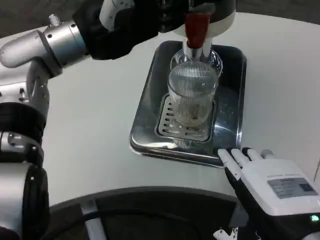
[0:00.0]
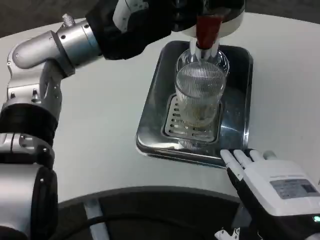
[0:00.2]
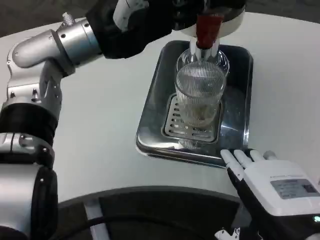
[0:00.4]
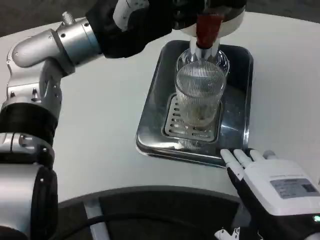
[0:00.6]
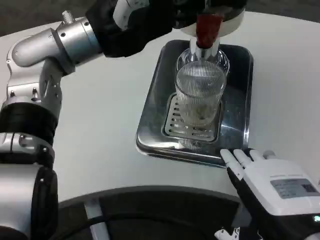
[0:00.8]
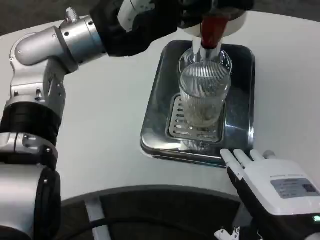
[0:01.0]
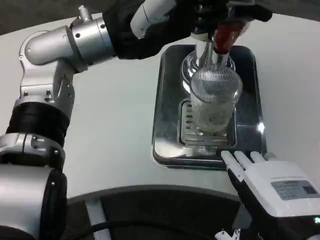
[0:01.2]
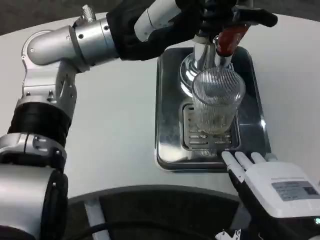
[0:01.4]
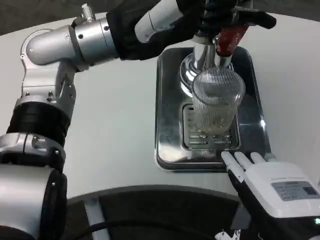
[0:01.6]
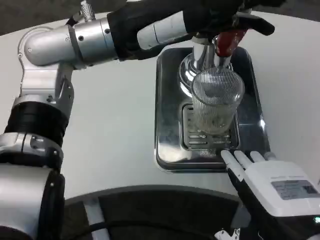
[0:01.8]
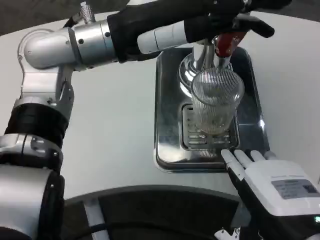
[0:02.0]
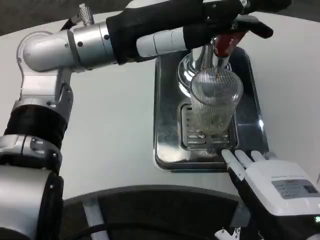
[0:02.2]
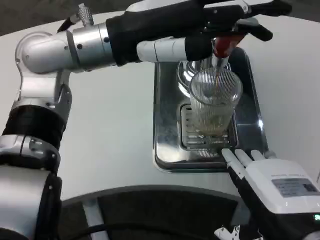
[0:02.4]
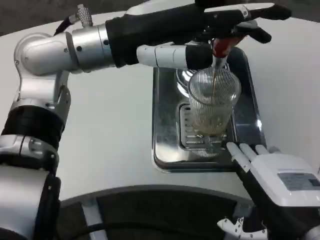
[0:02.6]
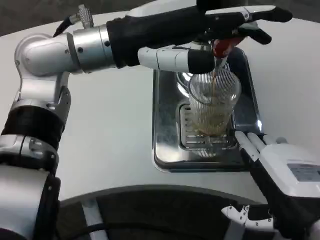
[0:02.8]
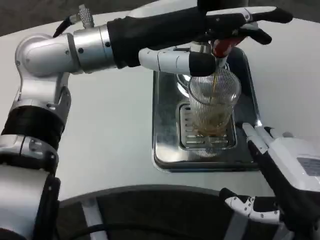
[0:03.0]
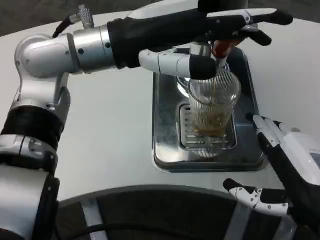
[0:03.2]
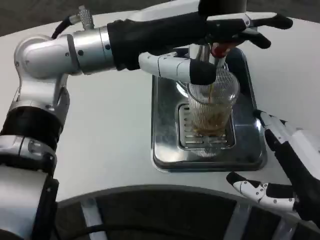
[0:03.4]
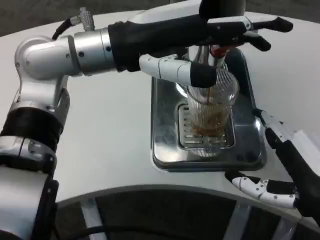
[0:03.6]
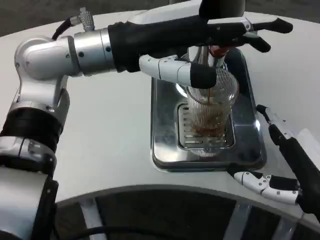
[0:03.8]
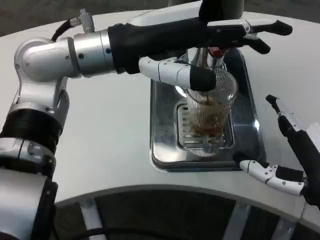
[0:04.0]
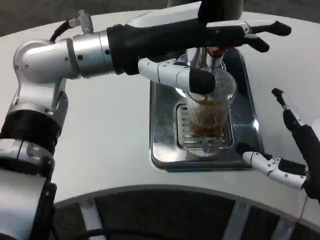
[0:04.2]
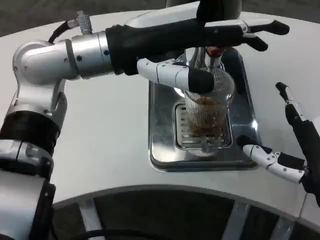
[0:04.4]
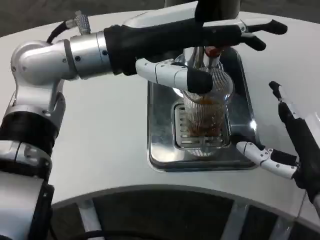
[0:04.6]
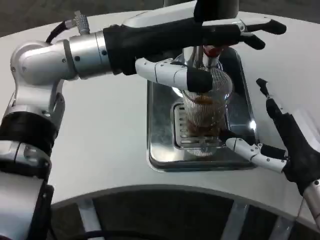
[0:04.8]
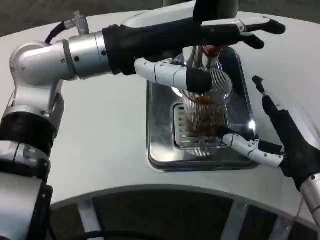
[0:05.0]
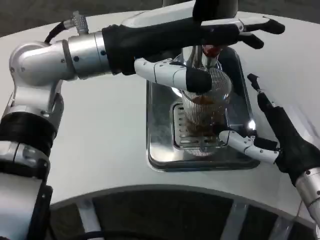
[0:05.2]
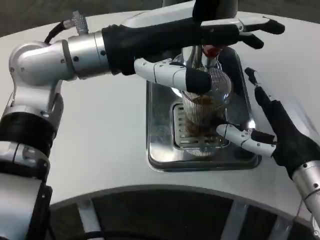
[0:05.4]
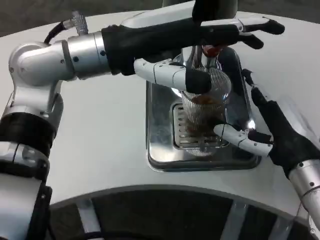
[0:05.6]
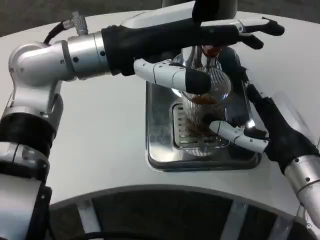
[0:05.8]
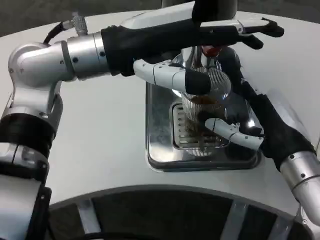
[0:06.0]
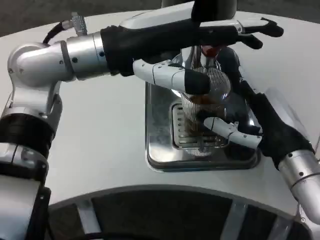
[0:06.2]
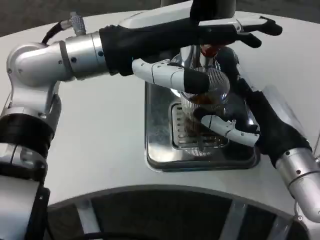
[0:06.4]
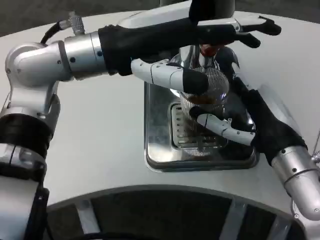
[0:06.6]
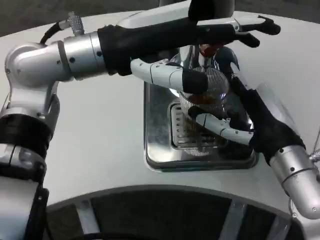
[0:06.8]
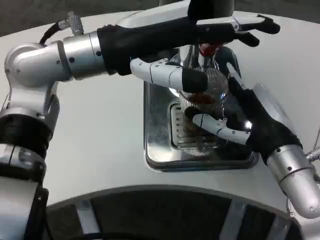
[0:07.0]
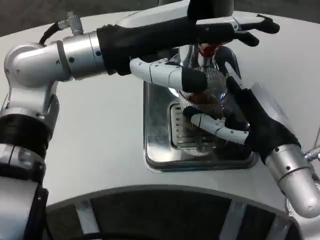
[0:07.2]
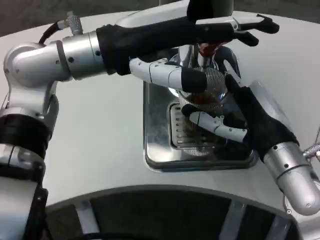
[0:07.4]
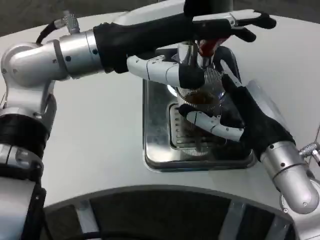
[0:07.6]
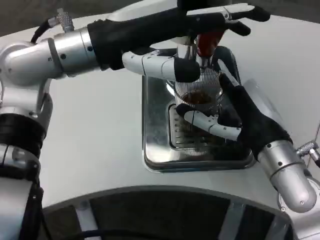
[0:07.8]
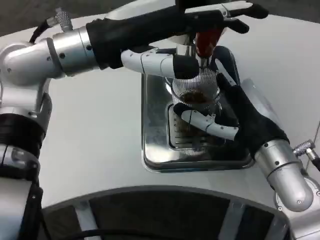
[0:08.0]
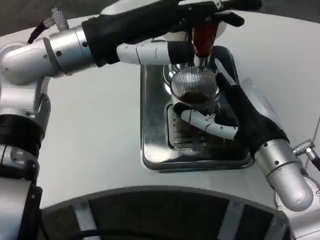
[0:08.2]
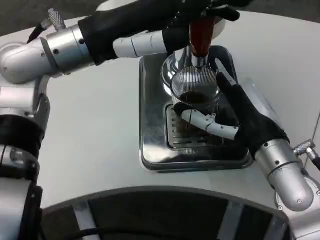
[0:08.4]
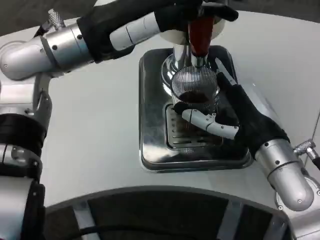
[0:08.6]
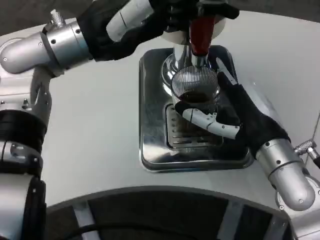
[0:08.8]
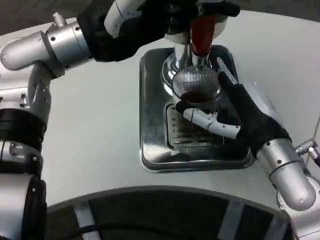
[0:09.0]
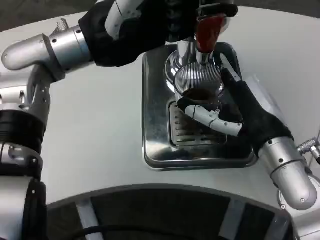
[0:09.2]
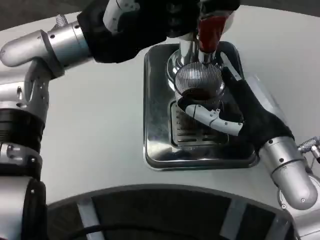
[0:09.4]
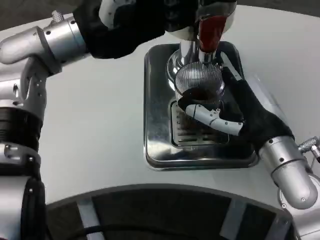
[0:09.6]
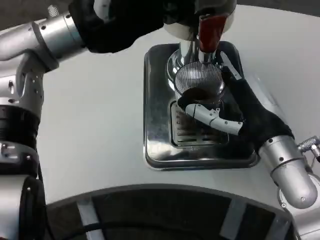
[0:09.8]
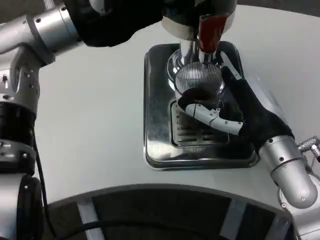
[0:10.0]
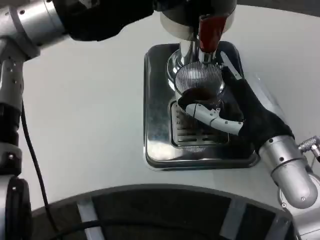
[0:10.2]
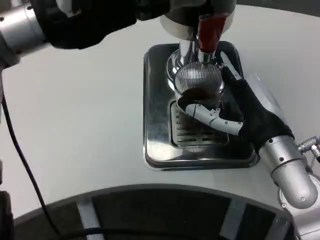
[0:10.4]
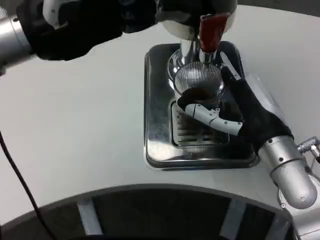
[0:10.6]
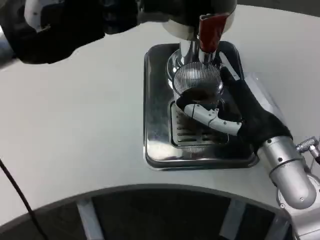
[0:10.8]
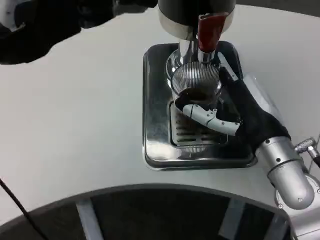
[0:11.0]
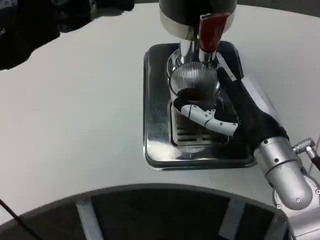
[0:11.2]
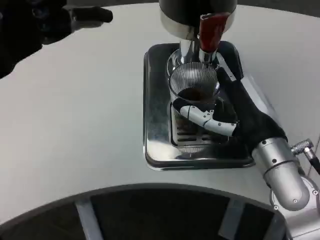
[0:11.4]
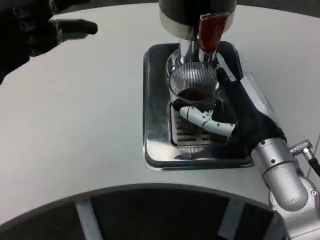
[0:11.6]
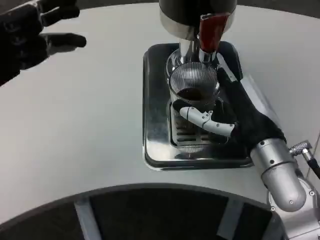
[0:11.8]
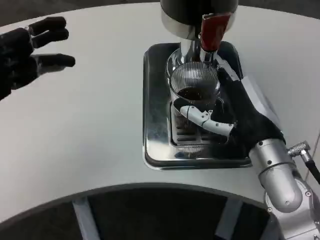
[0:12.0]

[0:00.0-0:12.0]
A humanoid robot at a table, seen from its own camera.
Task of the whole recording: Grasp the cup under the faucet to collect the drink, then remove the cup.
0:03.0 to 0:04.4: The right hand travels forward by some 5 cm.
0:04.4 to 0:06.0: The right hand moves forward, approximately 5 cm.
0:09.0 to 0:10.4: The left hand moves roughly 5 cm.
0:10.4 to 0:12.0: The left hand heads to the left, downward and backward, covering about 15 cm.

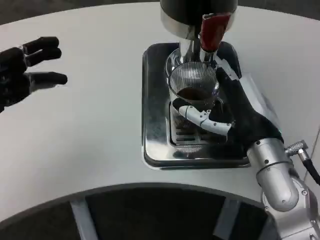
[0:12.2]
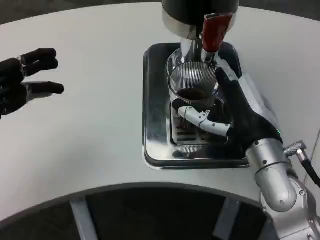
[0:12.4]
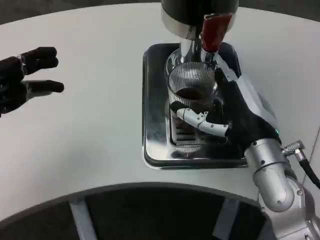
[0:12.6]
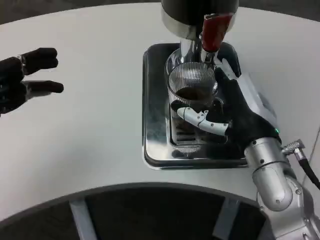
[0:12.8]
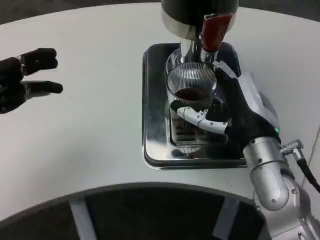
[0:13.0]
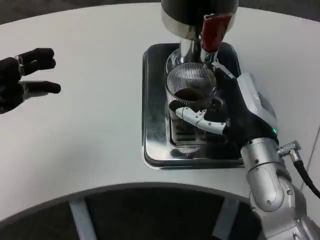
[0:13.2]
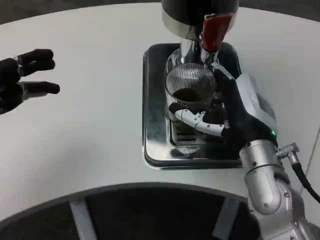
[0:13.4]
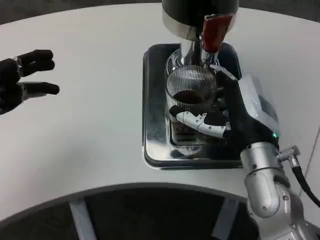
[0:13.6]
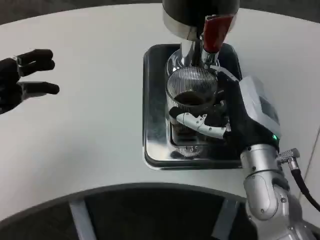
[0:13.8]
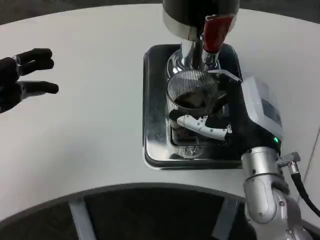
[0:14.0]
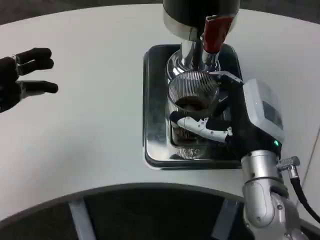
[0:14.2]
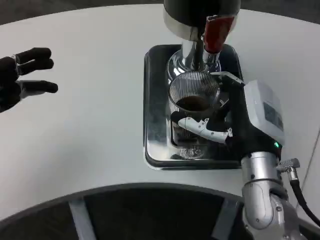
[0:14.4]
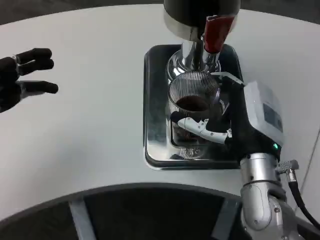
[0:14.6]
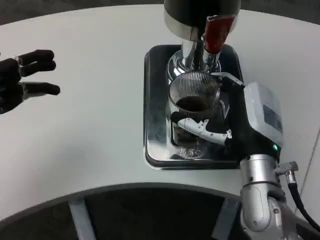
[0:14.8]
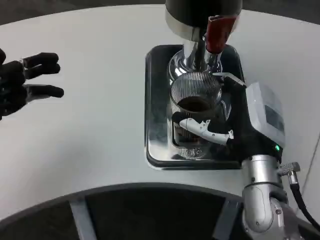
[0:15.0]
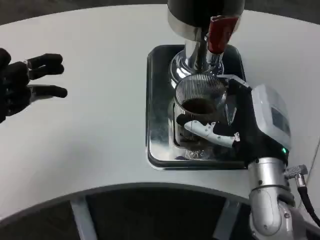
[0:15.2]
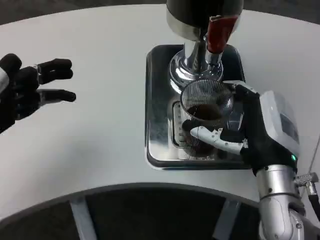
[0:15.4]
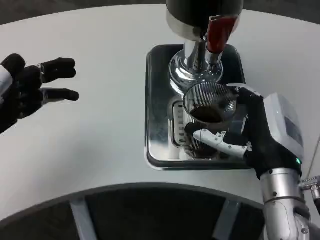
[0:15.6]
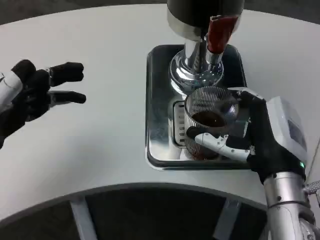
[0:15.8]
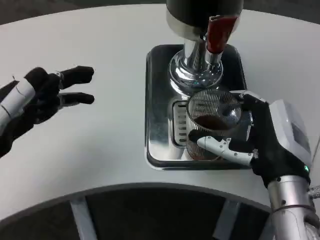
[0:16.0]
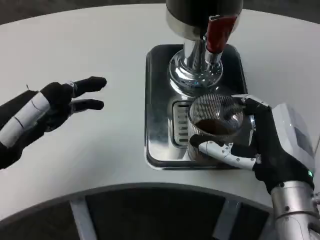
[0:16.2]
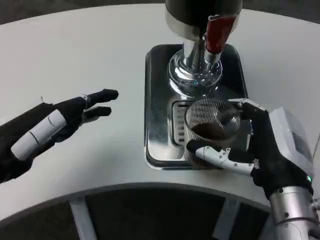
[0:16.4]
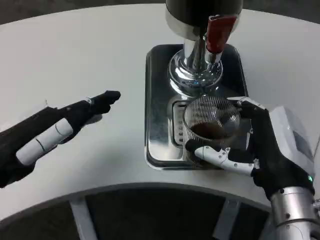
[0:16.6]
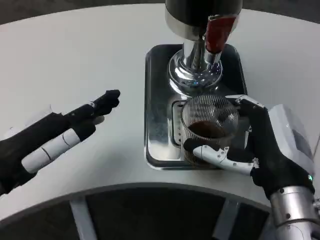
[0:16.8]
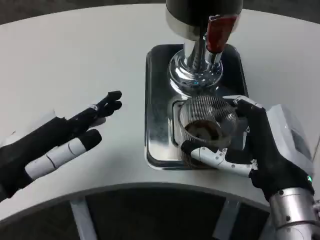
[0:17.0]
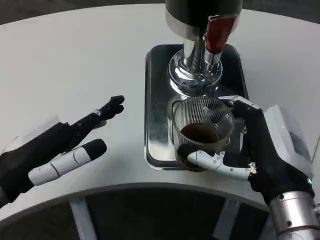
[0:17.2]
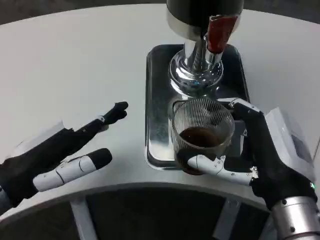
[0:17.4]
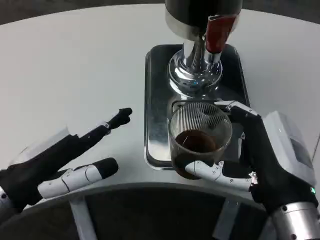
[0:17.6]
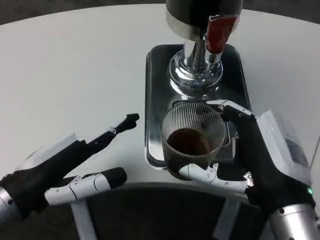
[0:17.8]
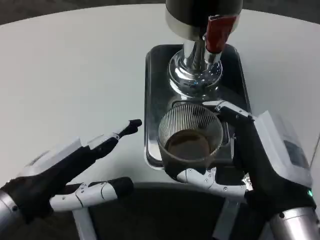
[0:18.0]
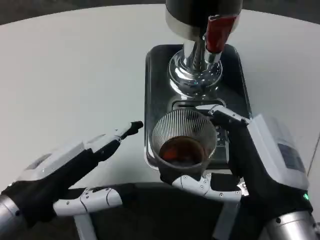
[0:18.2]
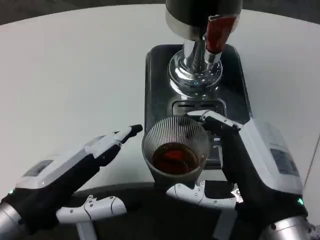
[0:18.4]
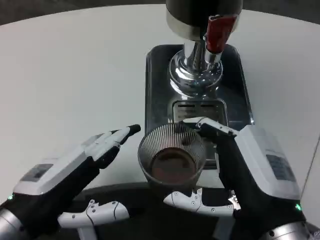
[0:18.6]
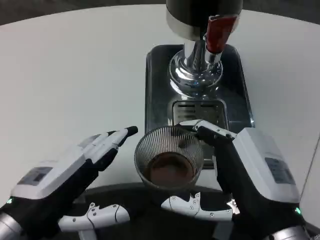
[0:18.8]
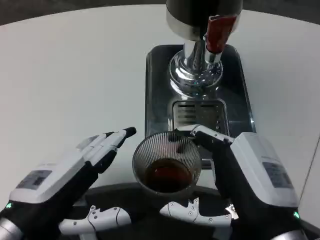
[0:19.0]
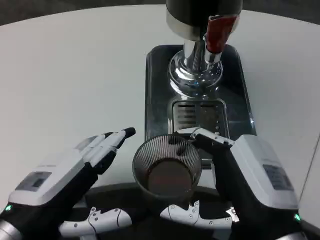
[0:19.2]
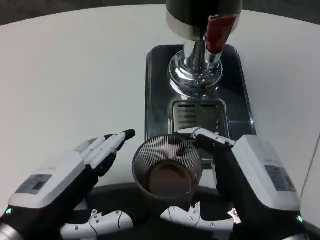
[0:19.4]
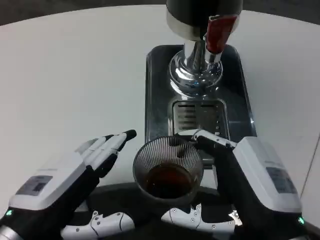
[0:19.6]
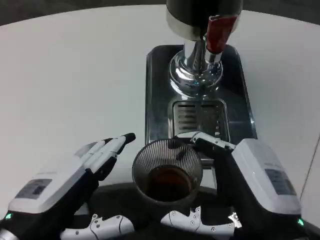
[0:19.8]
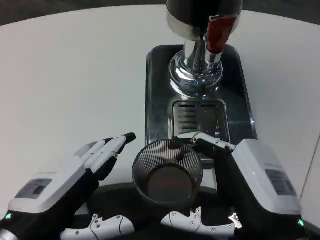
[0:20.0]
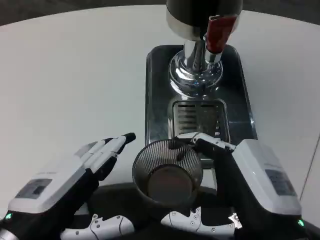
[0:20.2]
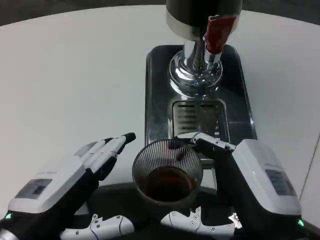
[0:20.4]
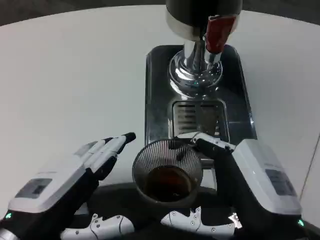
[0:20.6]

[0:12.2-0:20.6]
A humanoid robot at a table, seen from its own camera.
Task of the whole recording: Grasp the cup under the faucet to collect the drink, then remove the cup.
0:12.2 to 0:15.0: The hands move only a little.
0:15.0 to 0:16.4: The right hand is displaced backward by some 5 cm; the left hand shifts some 5 cm to the right.
0:16.4 to 0:17.8: The left hand shifts by roughly 5 cm.
0:17.8 to 0:19.2: The left hand moves roughly 5 cm.
0:19.2 to 0:20.6: The two hands keep their place.

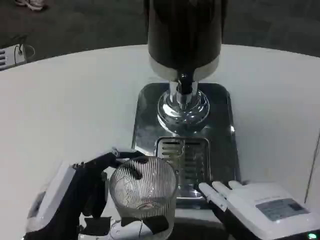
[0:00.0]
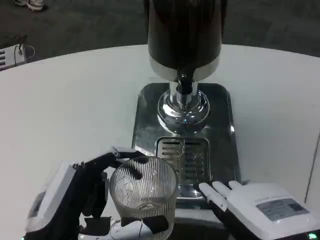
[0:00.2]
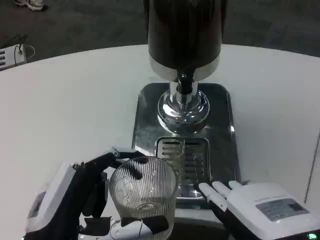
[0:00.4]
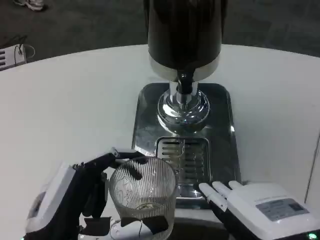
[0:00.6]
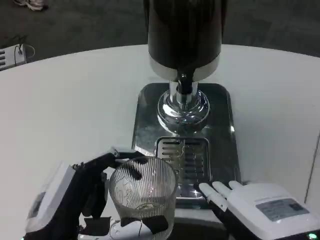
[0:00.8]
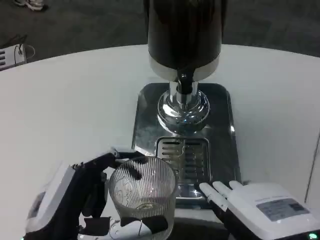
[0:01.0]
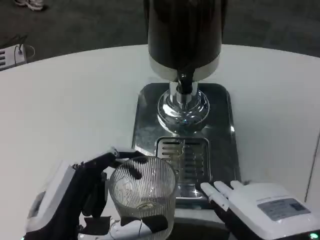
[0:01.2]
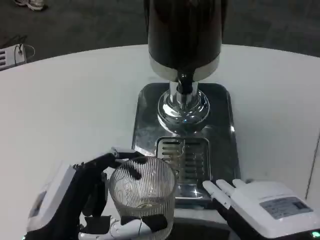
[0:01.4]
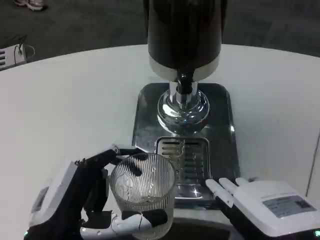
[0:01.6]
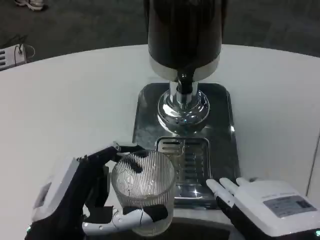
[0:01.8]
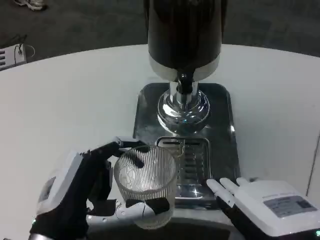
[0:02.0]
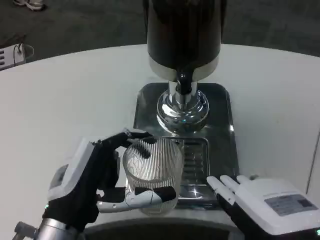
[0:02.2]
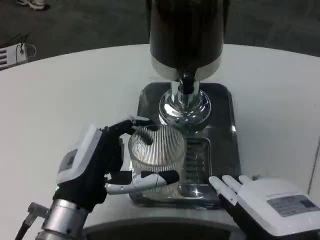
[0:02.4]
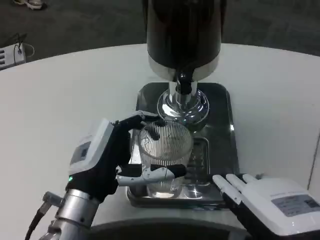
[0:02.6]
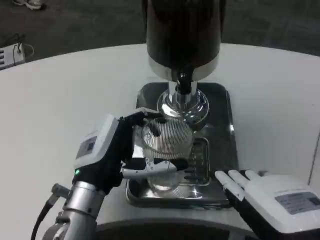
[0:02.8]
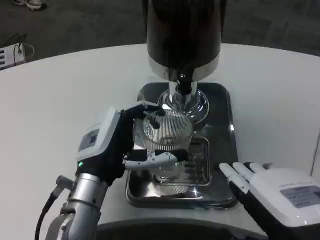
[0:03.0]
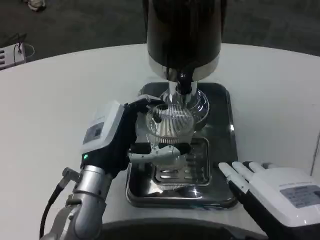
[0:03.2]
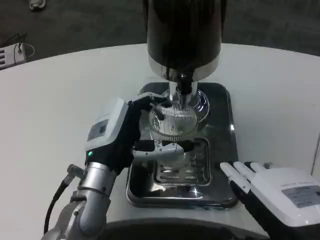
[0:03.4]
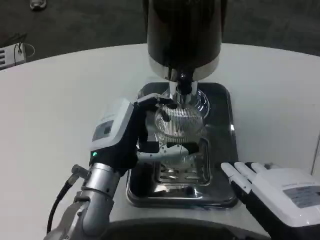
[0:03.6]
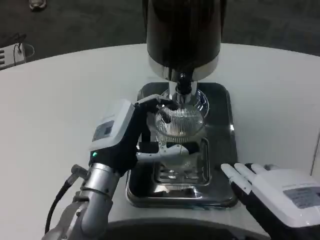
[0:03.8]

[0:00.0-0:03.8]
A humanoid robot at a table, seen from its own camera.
Task of the whole recording: Grasp the cup under the faucet to collect the drink, then remove the cup.
0:00.0 to 0:01.2: Both hands stay about where they are.
0:01.2 to 0:02.6: The left hand travels forward by about 10 cm.
0:02.6 to 0:03.8: The left hand moves some 5 cm.
